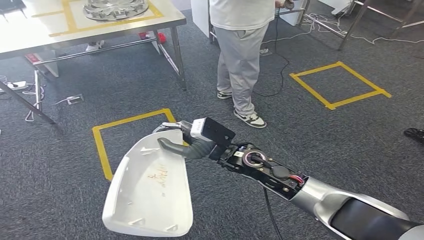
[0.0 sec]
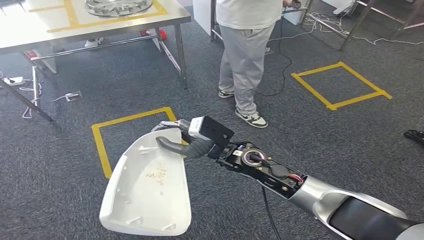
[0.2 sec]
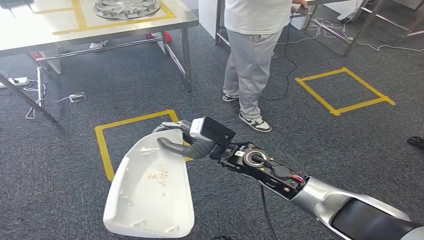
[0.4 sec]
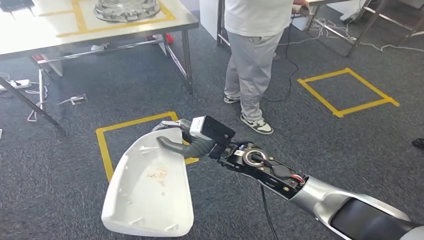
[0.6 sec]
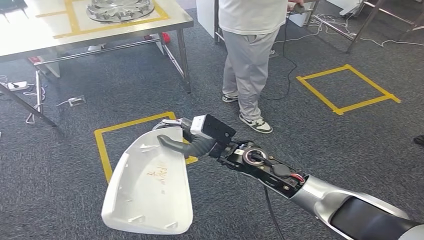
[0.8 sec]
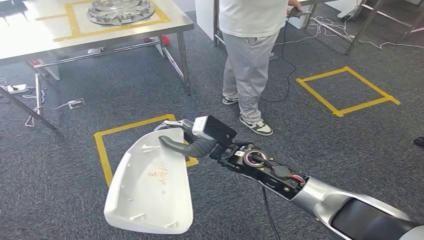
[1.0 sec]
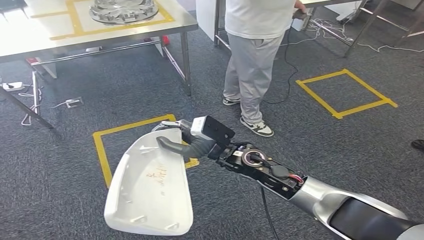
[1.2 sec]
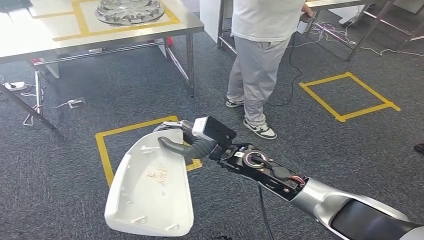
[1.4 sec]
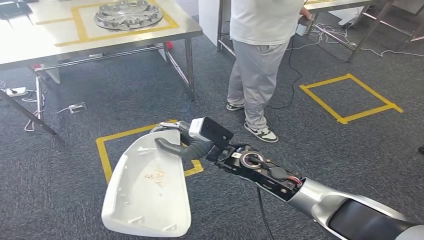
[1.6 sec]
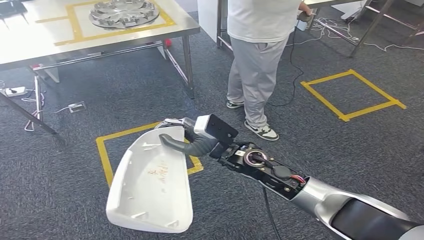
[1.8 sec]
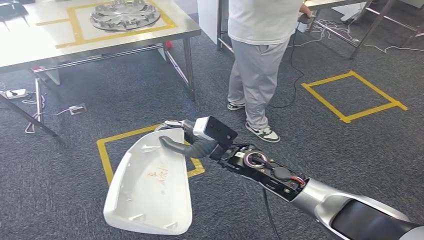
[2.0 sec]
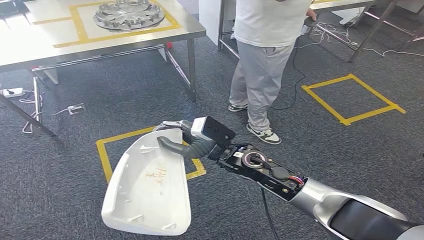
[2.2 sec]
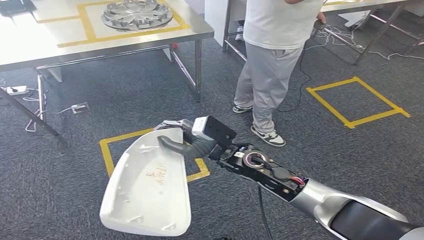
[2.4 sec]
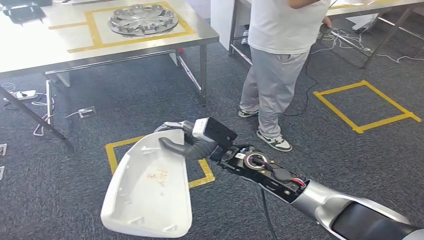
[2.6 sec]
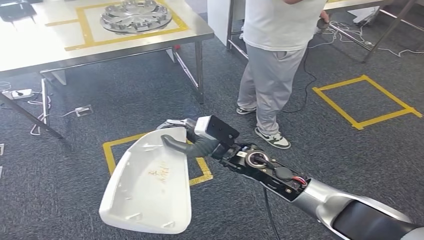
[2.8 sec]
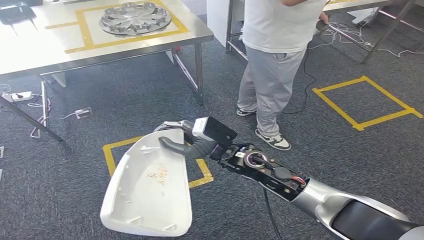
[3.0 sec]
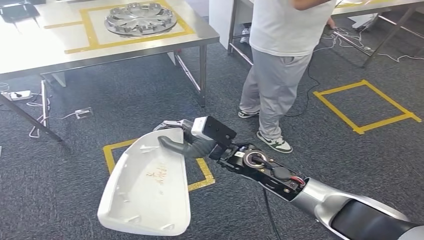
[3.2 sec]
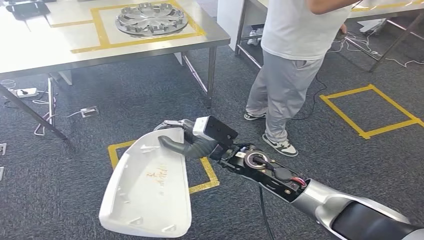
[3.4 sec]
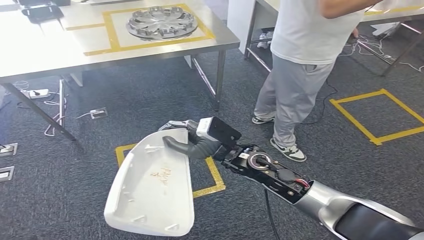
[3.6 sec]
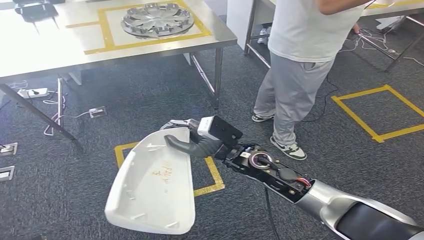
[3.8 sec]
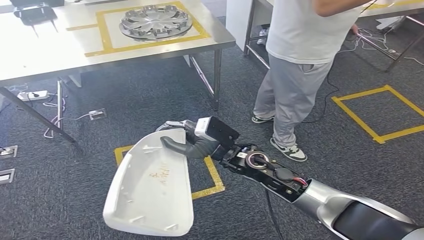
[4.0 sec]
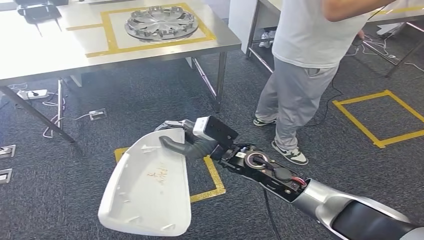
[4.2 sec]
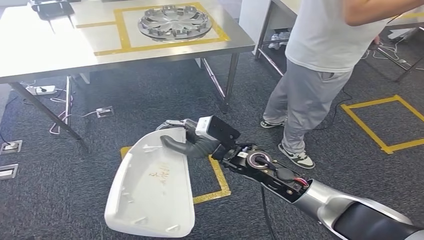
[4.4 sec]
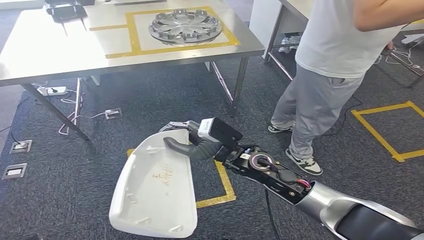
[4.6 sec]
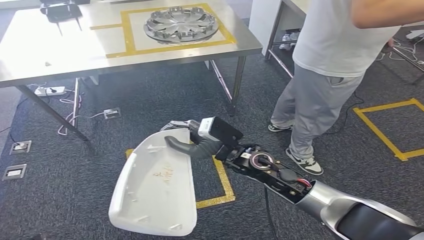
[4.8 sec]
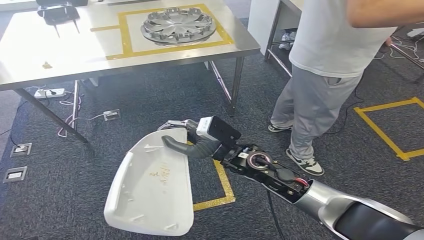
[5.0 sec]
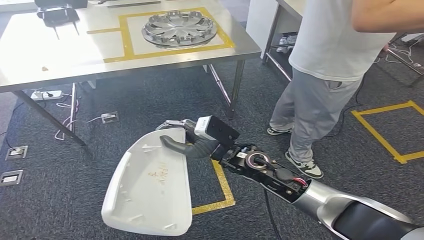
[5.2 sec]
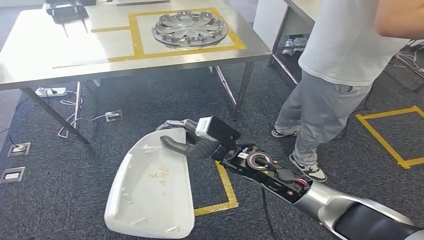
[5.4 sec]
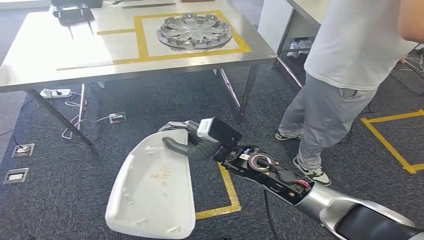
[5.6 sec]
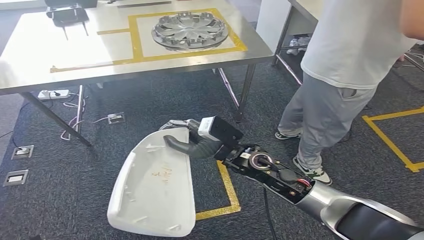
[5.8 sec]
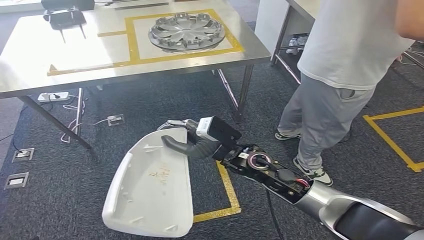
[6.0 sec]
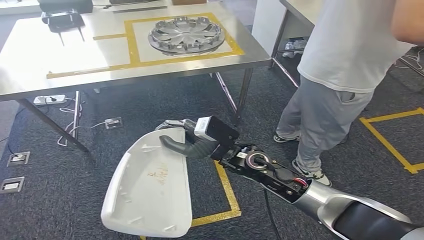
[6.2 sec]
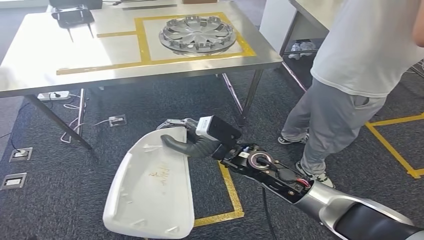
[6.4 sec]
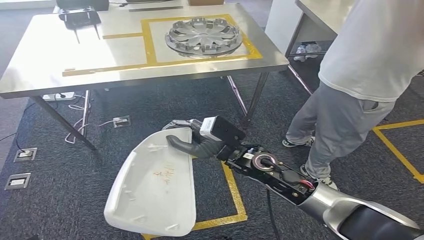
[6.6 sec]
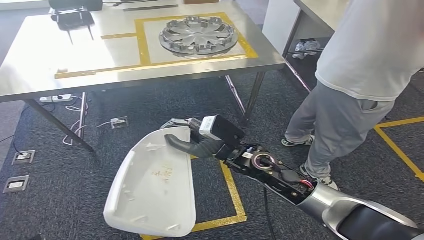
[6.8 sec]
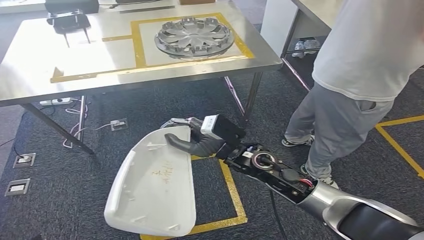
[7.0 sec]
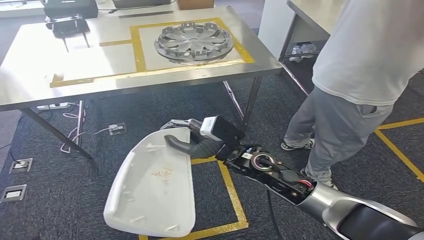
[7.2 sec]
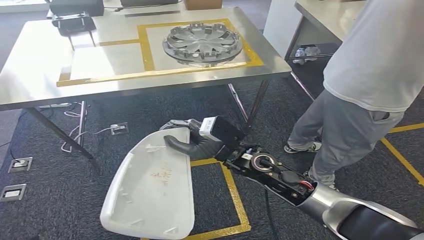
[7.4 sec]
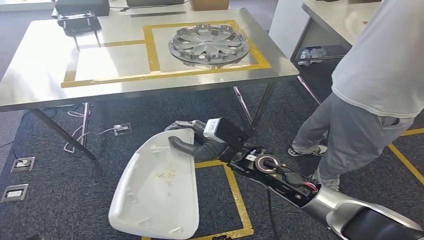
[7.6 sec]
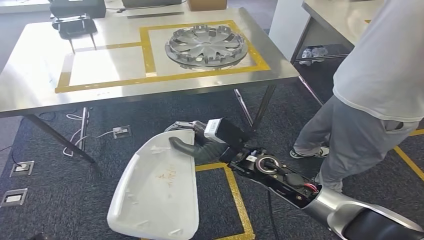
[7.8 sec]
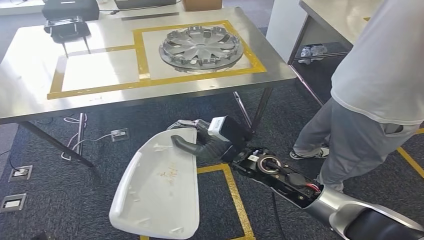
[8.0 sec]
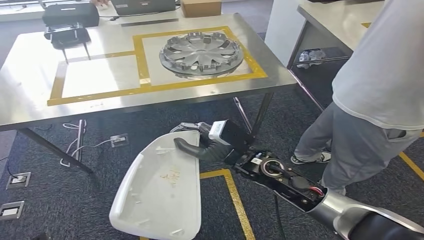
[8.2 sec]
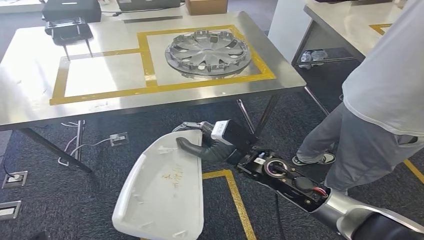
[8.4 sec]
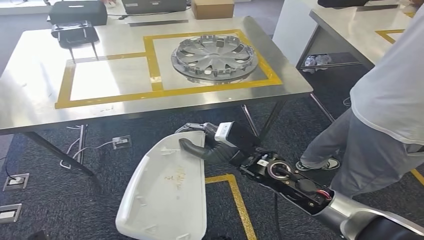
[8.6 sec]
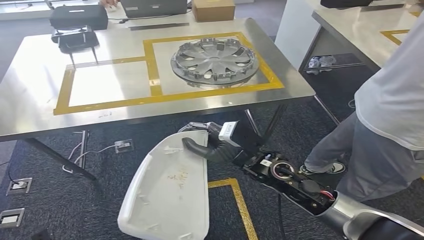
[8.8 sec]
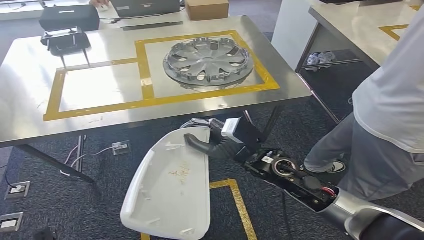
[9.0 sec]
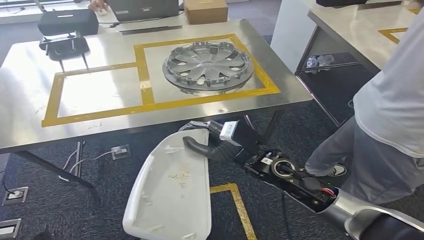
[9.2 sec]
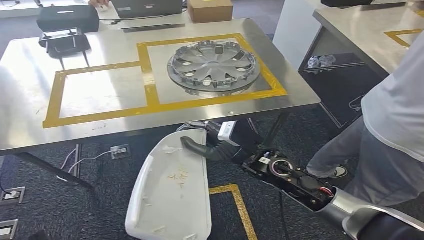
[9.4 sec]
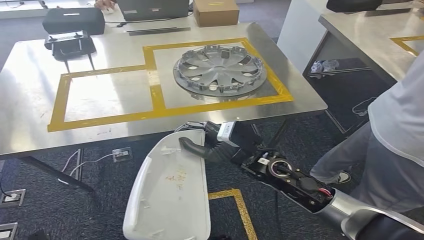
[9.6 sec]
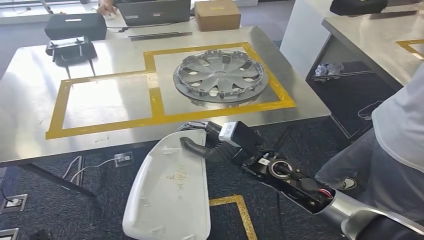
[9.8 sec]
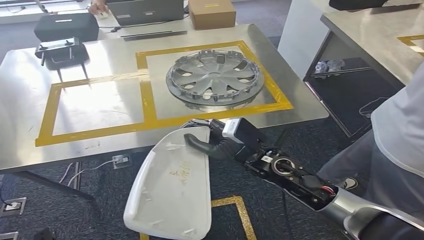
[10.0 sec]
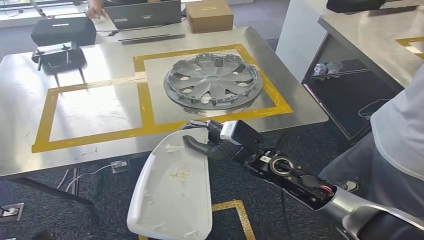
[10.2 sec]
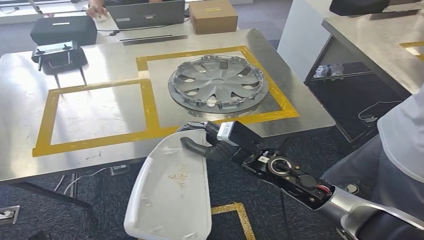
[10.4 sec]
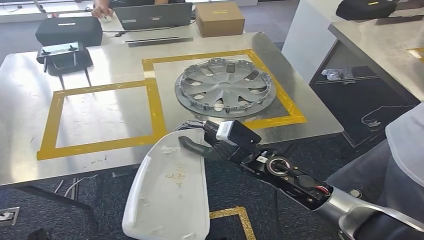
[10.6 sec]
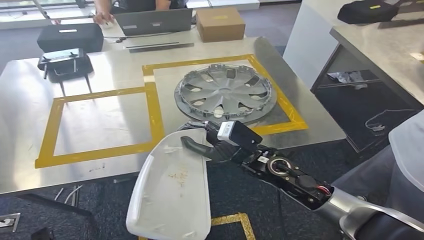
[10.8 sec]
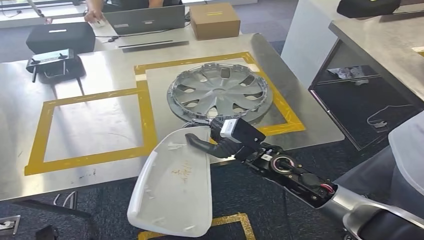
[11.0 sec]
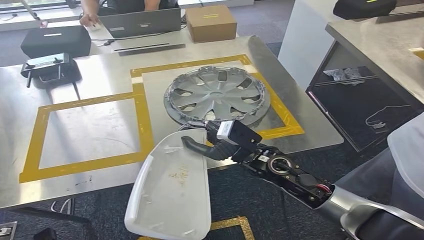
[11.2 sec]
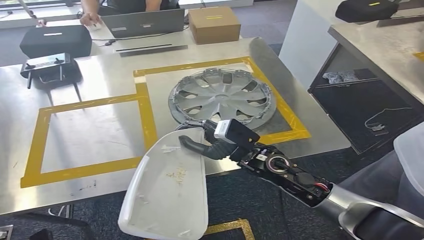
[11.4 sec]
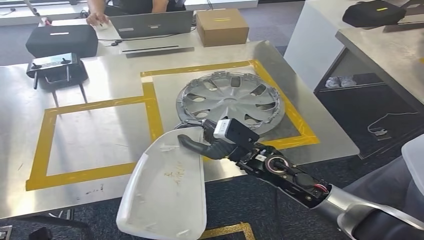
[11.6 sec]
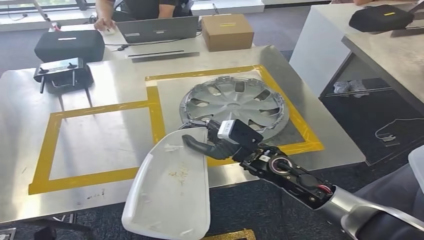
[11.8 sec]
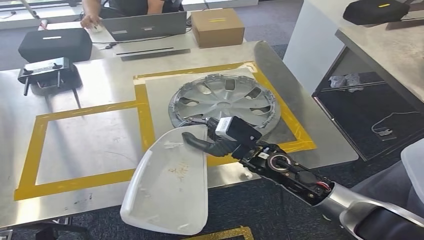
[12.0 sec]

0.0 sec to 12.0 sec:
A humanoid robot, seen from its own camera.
Step, 0.0 sec to 11.8 sec: Move the small component to the workbench.

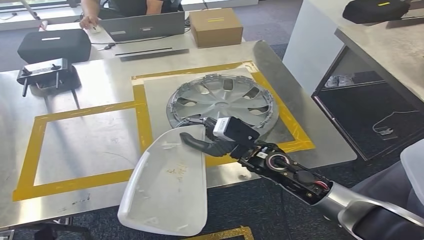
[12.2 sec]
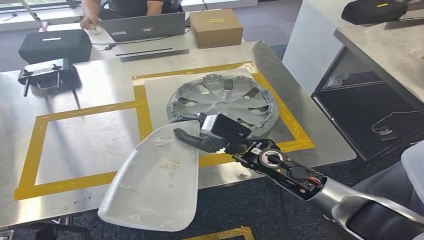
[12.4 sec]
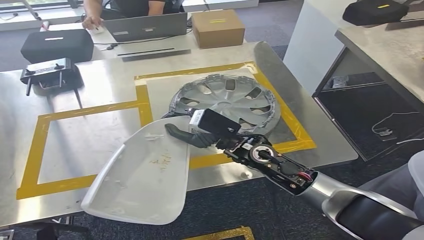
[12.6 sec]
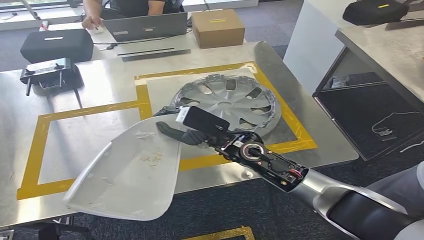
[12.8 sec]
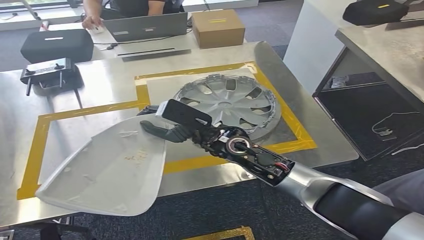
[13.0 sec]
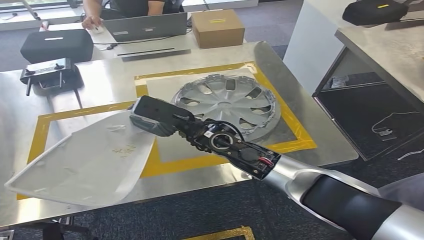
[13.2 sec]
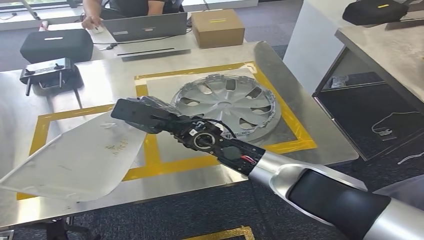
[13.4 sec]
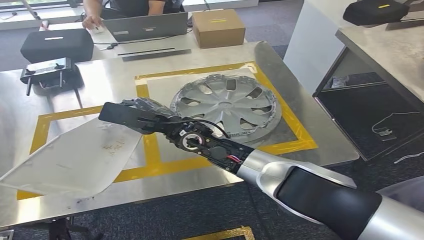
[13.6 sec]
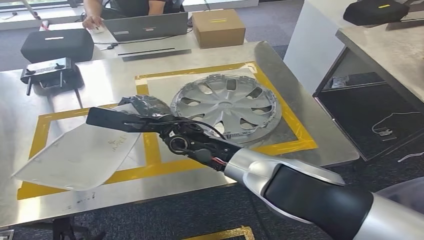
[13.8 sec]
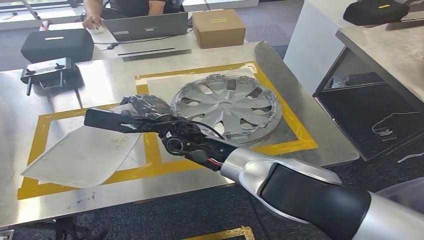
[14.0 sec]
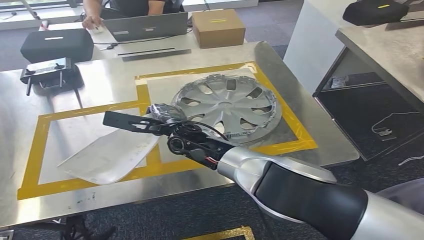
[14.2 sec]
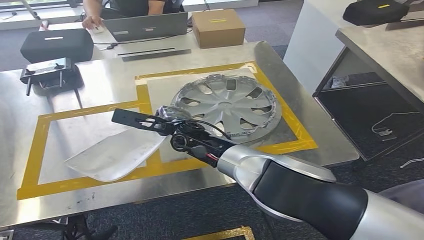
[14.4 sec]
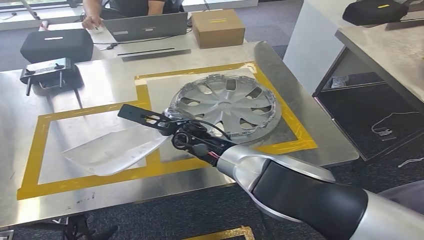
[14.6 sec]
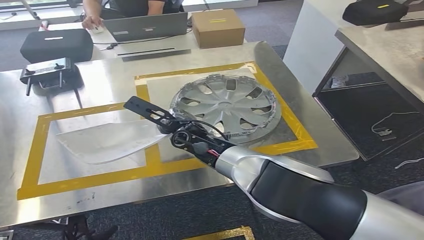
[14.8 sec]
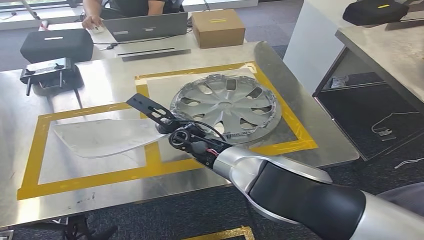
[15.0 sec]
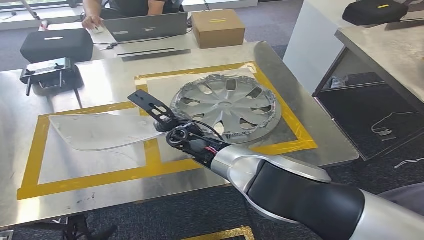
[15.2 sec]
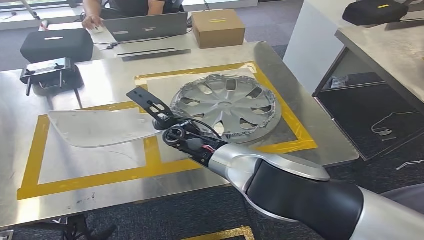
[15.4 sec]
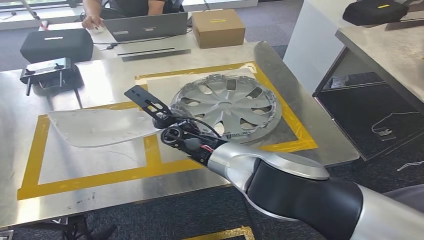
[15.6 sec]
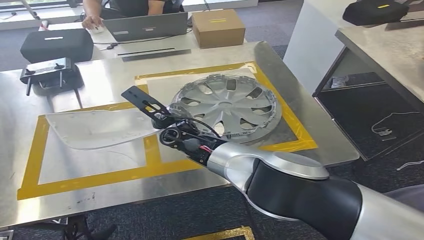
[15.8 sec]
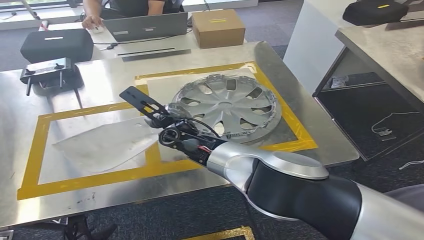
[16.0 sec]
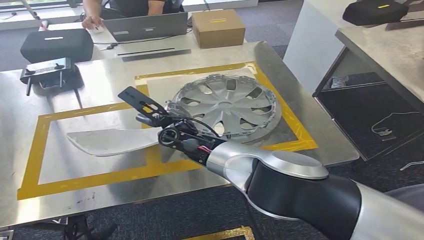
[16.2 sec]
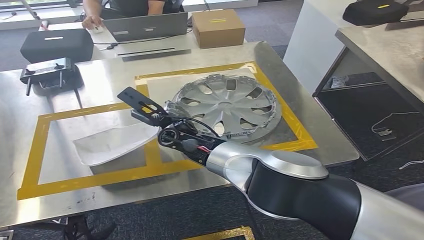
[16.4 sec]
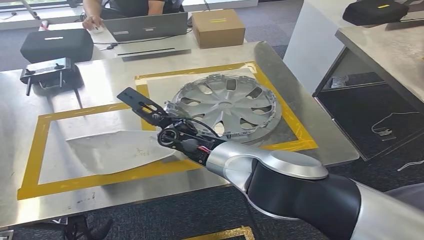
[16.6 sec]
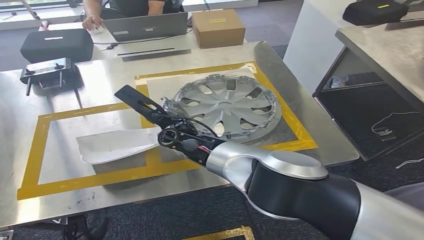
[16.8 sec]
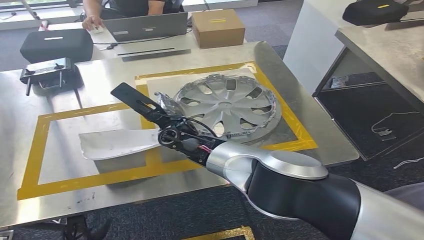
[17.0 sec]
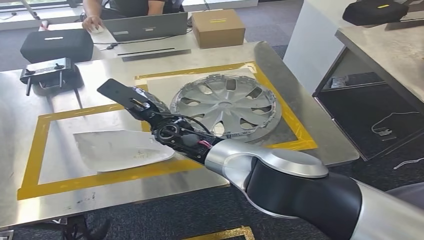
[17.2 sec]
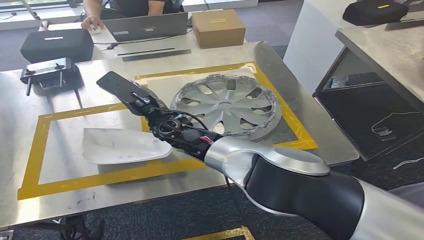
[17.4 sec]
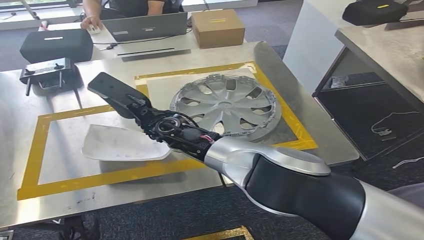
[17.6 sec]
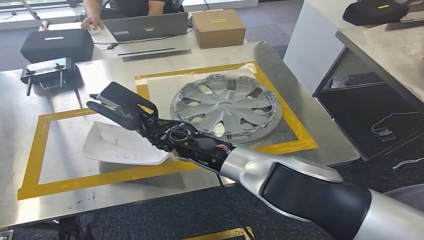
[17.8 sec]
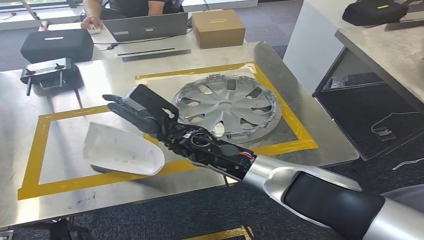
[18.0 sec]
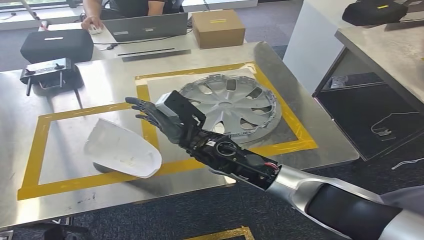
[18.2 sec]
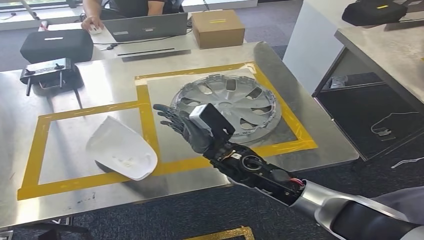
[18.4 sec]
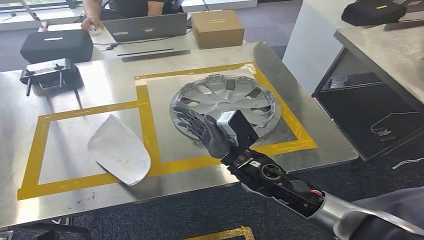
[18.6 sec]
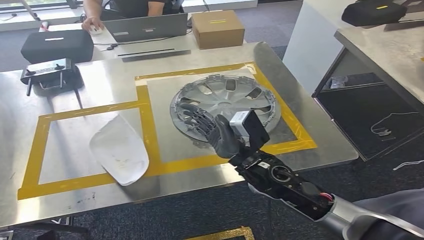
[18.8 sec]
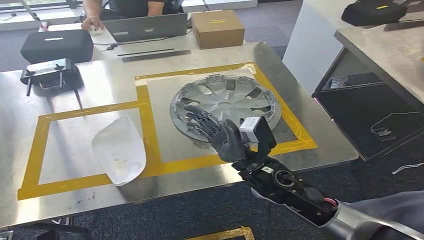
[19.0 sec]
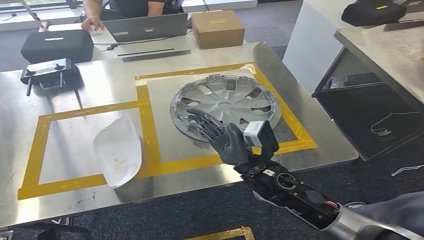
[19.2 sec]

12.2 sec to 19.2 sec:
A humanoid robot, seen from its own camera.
Step, 12.2 sec to 18.8 sec: Insert the small component into the corresponding slot on the workbench.
15.0 sec to 16.4 sec: The hands move only a little.
17.8 sec to 19.2 sec: The left hand ends up roughly 5 cm from where it was. The right hand shifts some 20 cm to the right and backward.
